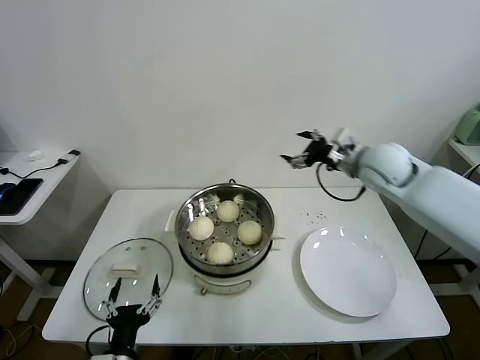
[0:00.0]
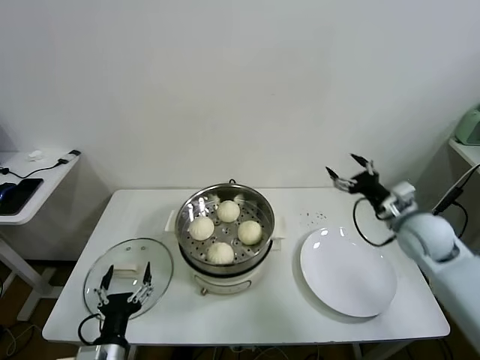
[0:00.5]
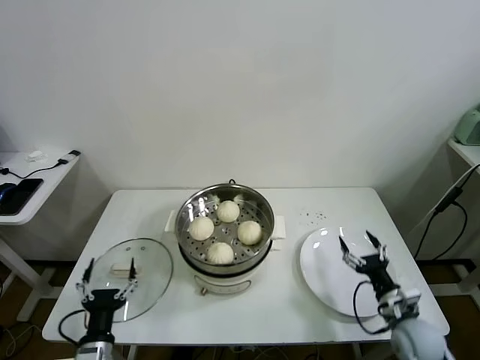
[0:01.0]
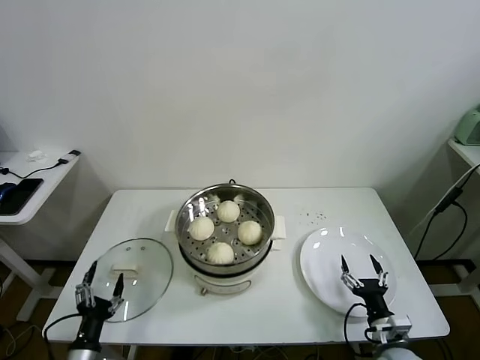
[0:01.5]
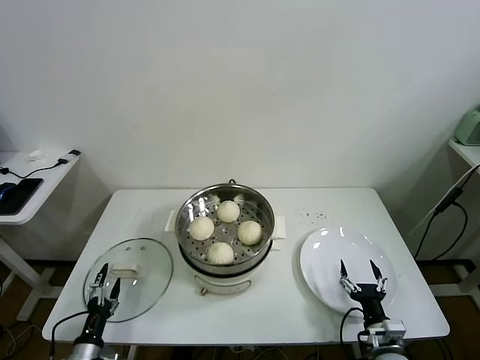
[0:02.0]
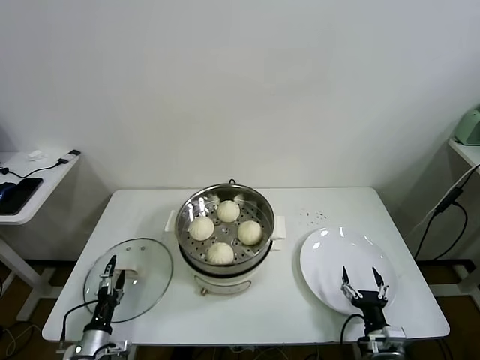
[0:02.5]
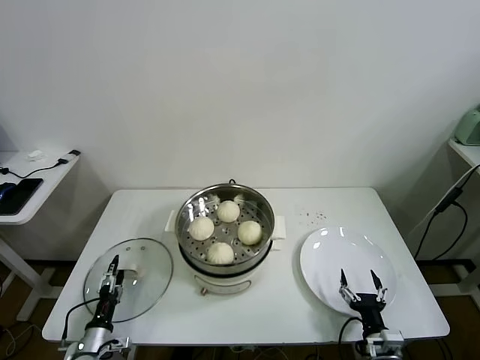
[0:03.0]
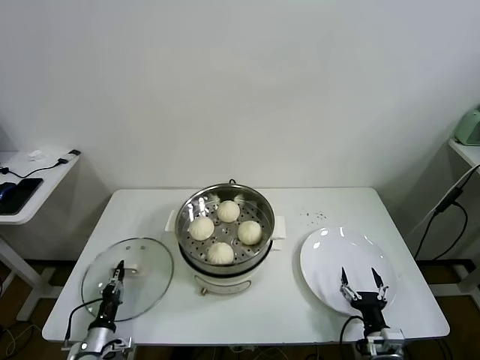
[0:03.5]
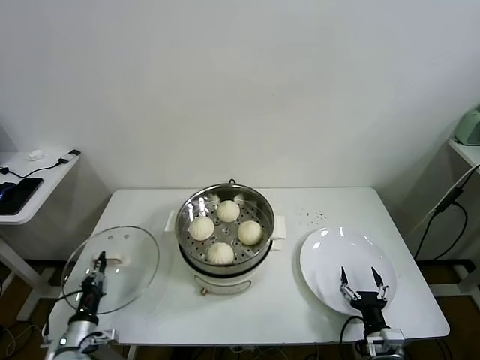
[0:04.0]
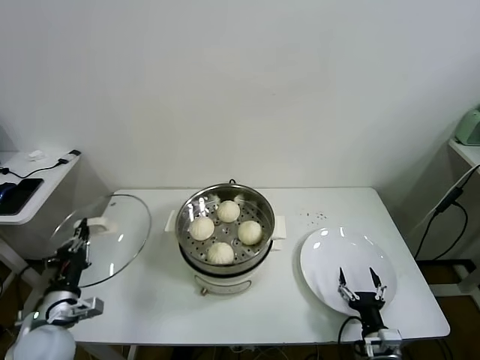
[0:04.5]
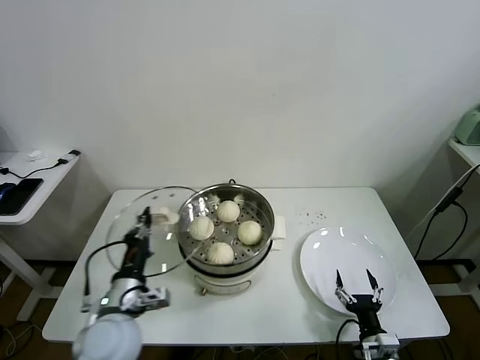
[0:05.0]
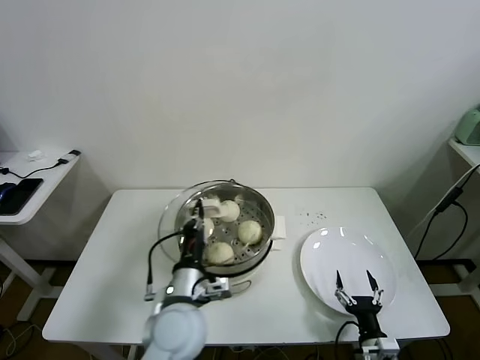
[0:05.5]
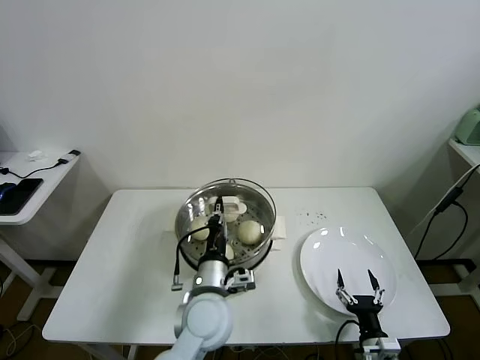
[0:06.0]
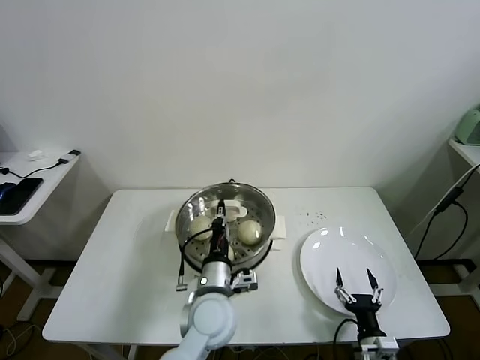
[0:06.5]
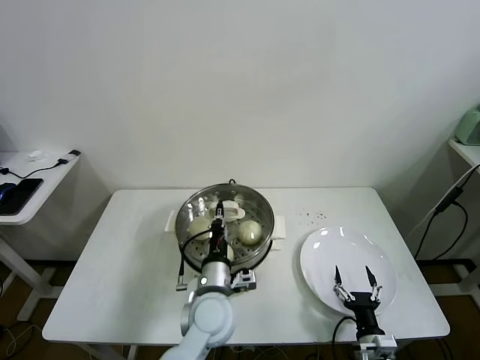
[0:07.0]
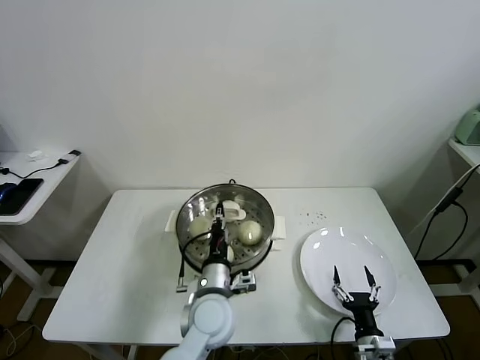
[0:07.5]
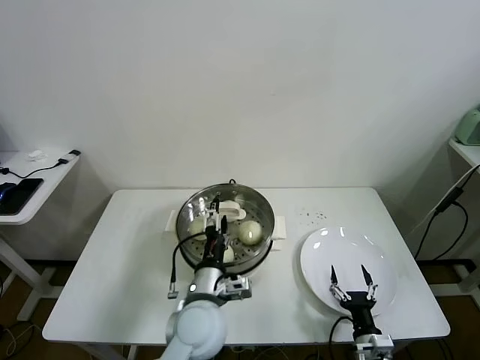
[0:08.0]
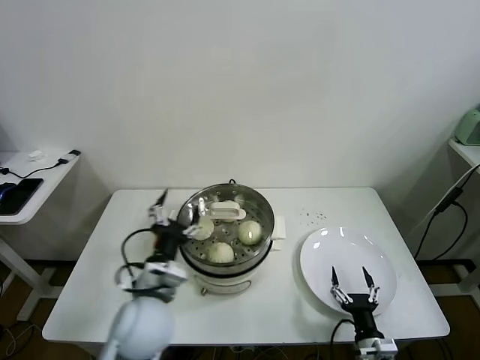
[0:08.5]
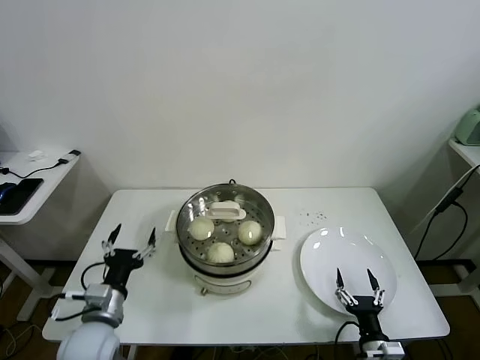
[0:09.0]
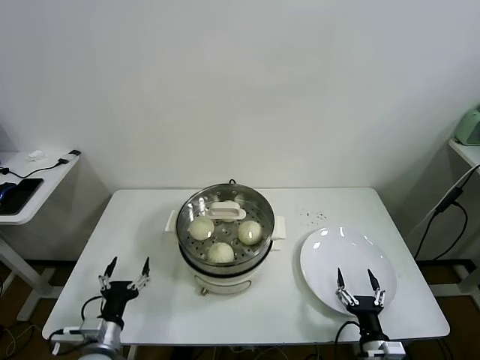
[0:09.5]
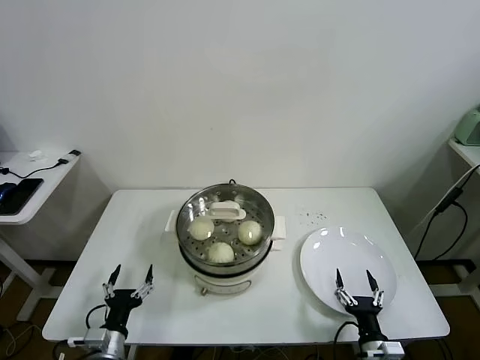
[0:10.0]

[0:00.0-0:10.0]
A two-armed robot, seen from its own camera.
Task of the whole recording: take steamed baozi put them in steamer.
Step, 0:00.0 to 0:03.5: Grasp the pot lid with left gripper.
Step, 0:04.0 to 0:08.0: Place the pot lid on the steamer with left gripper.
0:00.0 to 0:02.0: The left gripper goes about 20 cm to the left and downward. Meanwhile the right gripper heads downward and backward, covering approximately 50 cm.
0:02.0 to 0:04.0: The left gripper closes its fingers.
0:04.0 to 0:06.0: The left gripper moves to the right and upward, some 35 cm.
0:06.0 to 0:08.0: The left gripper opens.
0:08.0 to 0:10.0: The left gripper goes approximately 25 cm to the left and downward.
